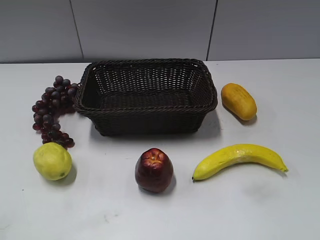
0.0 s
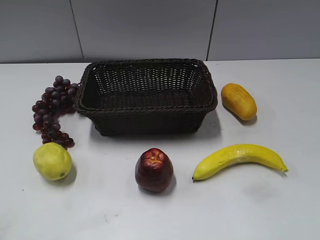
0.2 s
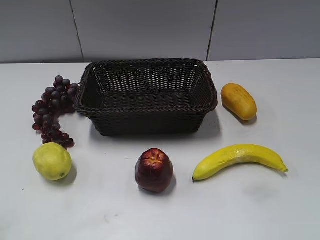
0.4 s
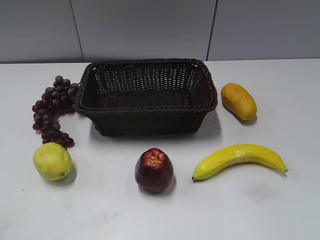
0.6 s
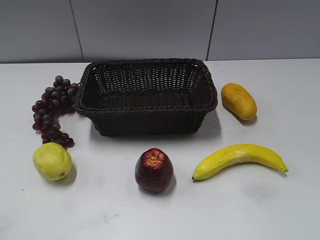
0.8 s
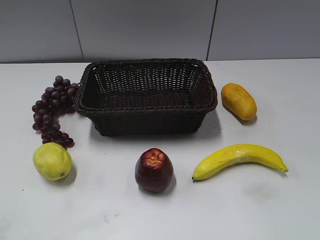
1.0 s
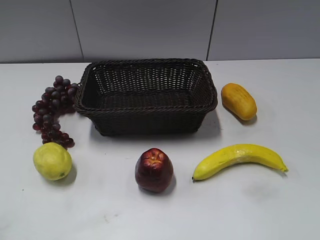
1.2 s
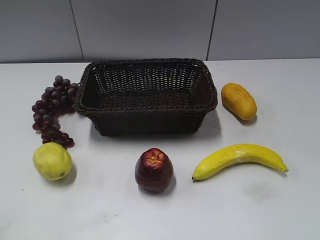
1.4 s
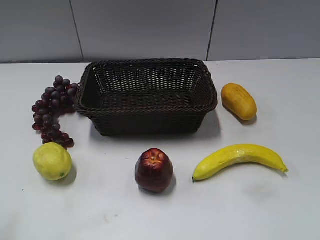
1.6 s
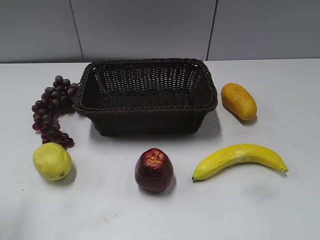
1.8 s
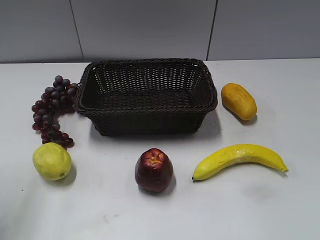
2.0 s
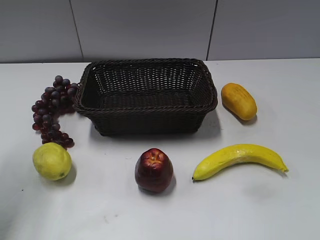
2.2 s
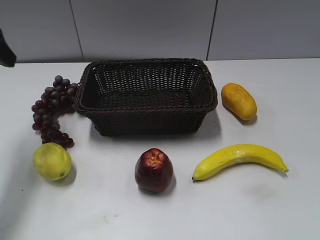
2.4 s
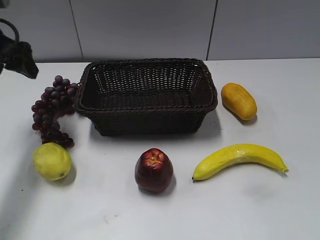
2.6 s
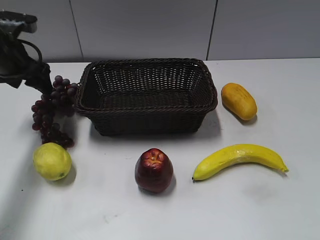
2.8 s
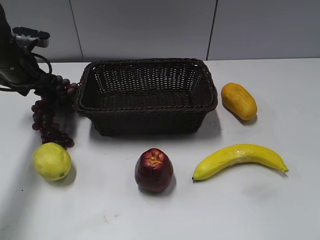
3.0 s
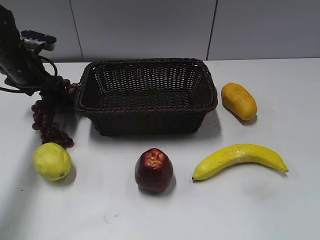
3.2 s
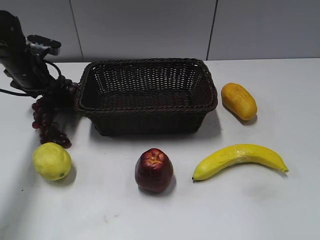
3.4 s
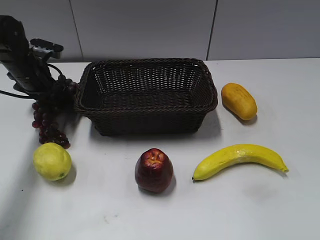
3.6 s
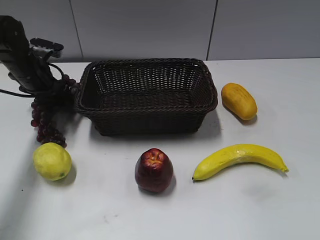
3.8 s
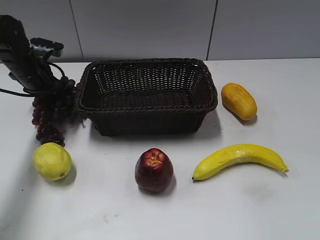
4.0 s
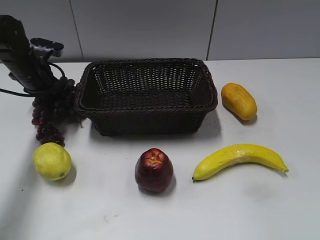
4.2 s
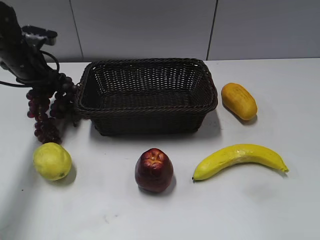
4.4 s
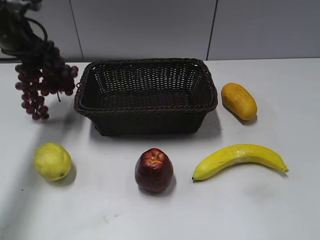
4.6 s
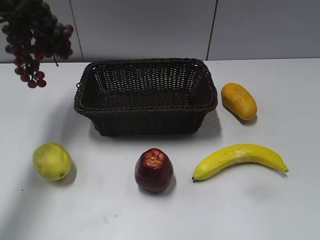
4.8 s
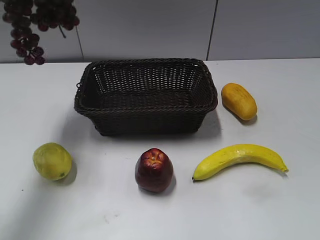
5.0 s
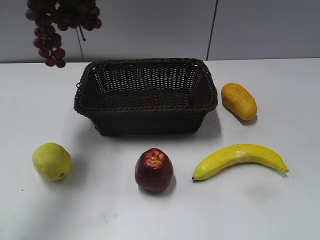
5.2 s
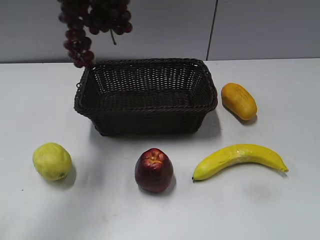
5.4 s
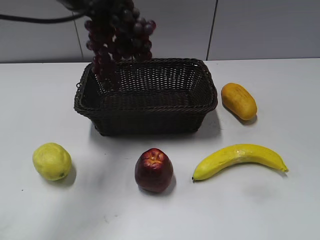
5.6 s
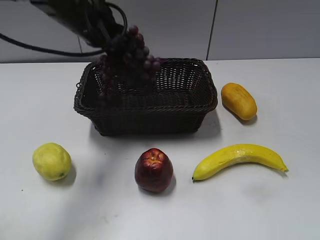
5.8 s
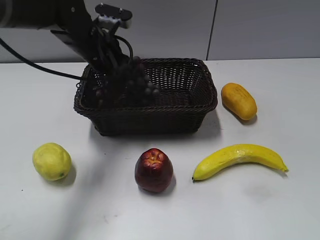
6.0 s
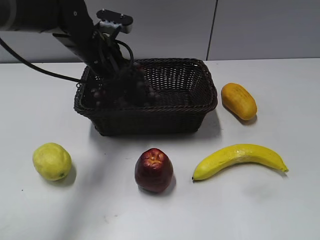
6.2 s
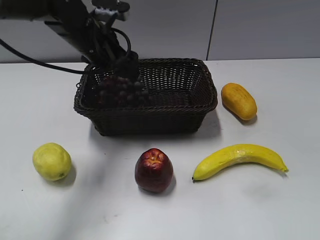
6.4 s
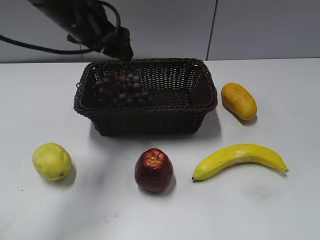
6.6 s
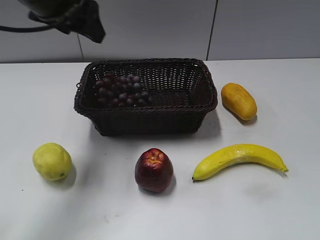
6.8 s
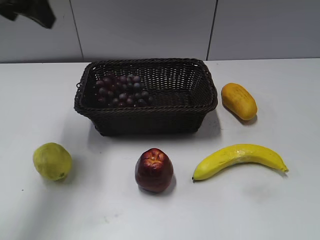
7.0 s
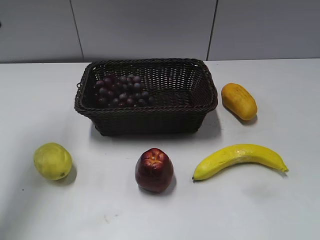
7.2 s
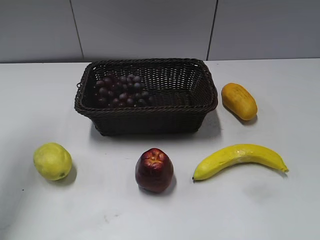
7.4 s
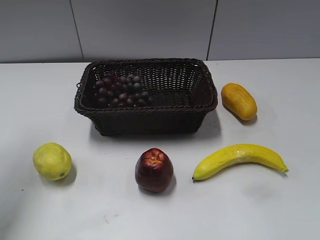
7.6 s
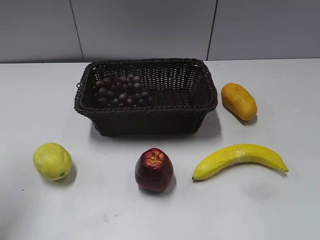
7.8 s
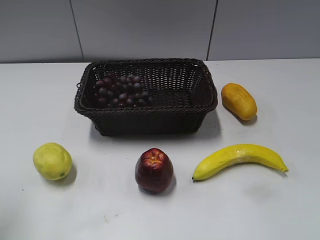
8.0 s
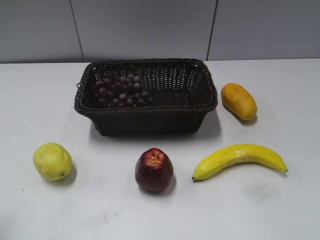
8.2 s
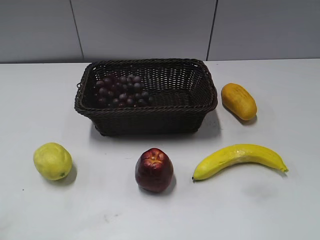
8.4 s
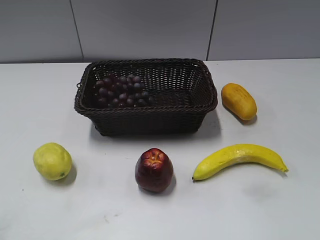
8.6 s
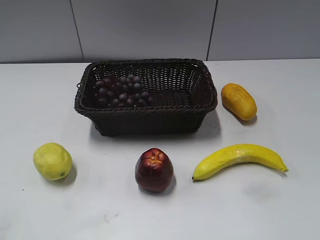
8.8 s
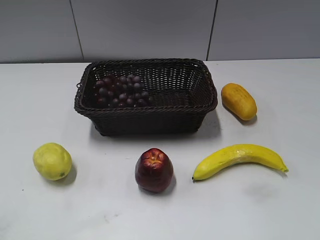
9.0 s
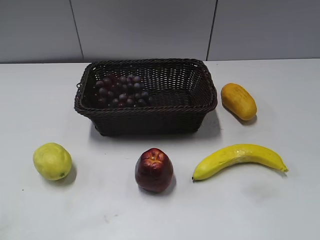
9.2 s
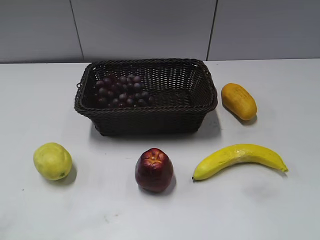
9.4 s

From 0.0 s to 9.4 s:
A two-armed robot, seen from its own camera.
Step, from 2.4 s to 3.8 s: Grasp the grape with left gripper.
Step, from 4.0 s to 6.4 s: Place the grape in the basket with left gripper.
From 1.6 s to 3.2 s: The left gripper moves forward and downward, approximately 40 cm.
From 3.2 s to 4.8 s: The left gripper shifts about 15 cm upward, and closes its fingers.
From 4.8 s to 6.2 s: The left gripper is displaced to the right and downward by some 20 cm, and opens up.
From 6.2 s to 7.8 s: The left gripper shifts about 30 cm to the left, backward and upward, and opens up.
From 7.8 s to 9.4 s: The left gripper goes some 20 cm backward.

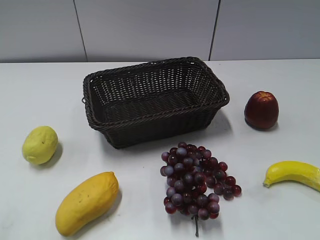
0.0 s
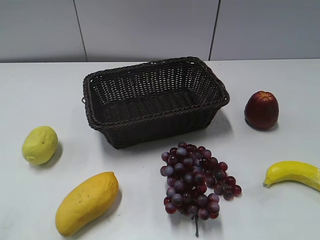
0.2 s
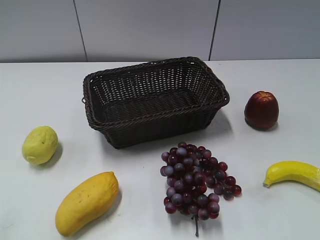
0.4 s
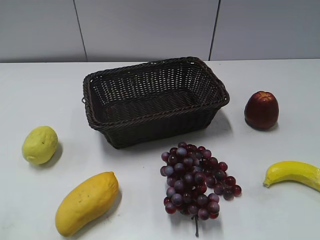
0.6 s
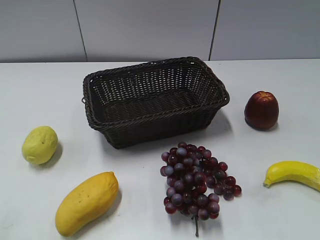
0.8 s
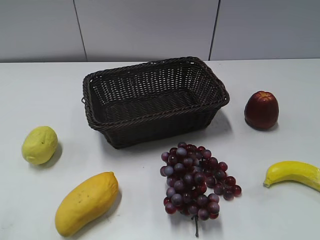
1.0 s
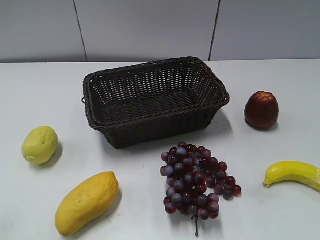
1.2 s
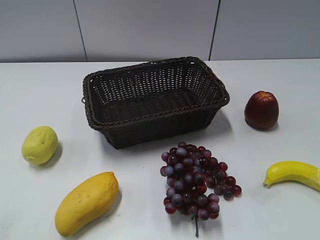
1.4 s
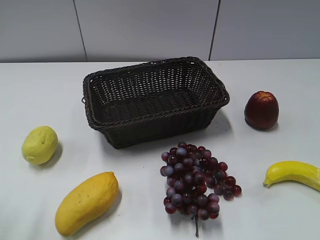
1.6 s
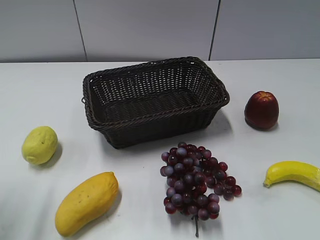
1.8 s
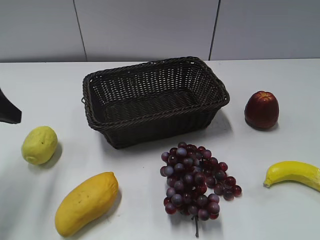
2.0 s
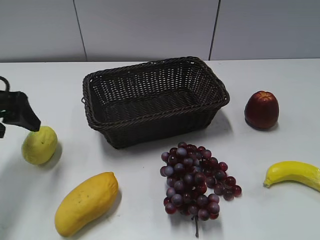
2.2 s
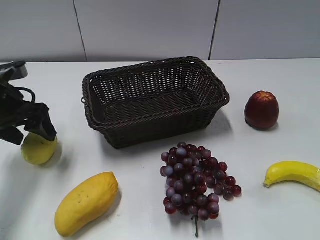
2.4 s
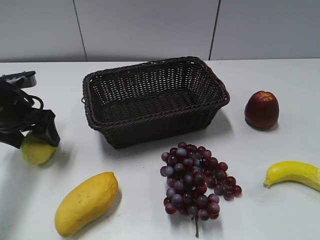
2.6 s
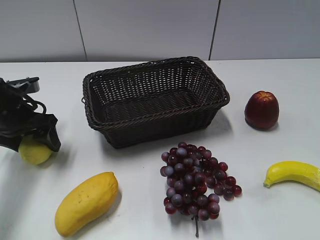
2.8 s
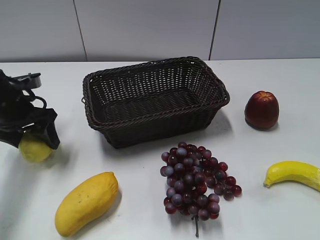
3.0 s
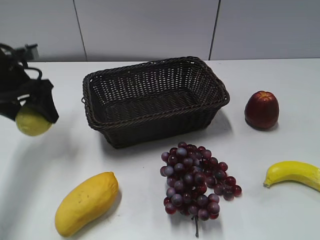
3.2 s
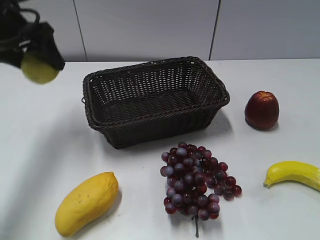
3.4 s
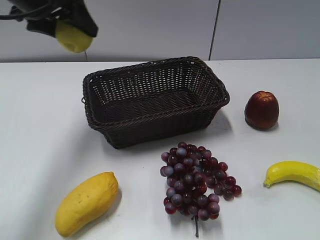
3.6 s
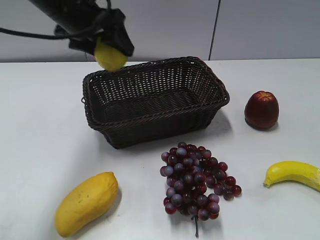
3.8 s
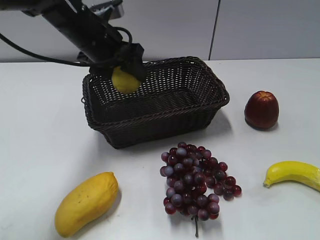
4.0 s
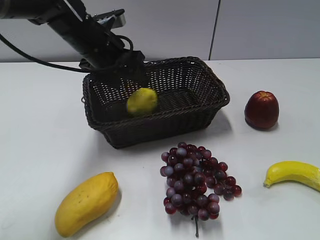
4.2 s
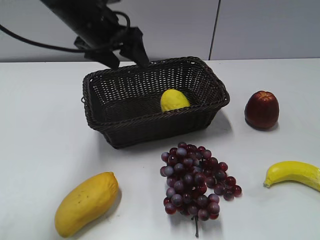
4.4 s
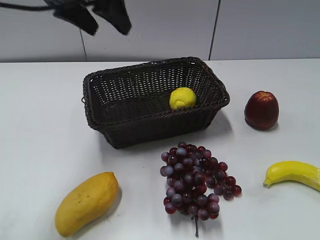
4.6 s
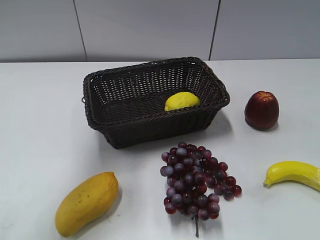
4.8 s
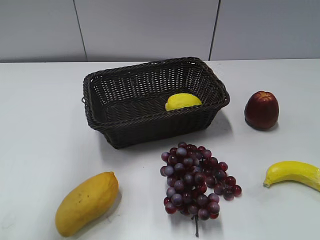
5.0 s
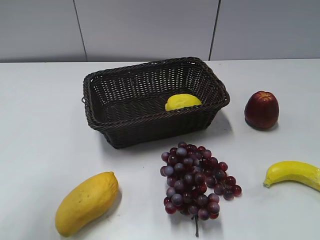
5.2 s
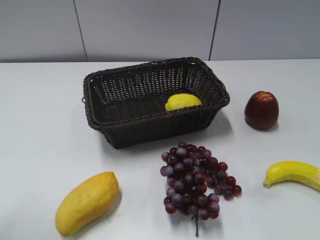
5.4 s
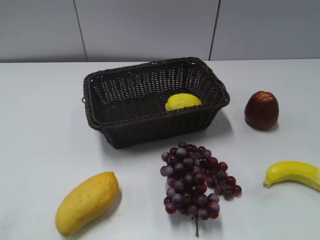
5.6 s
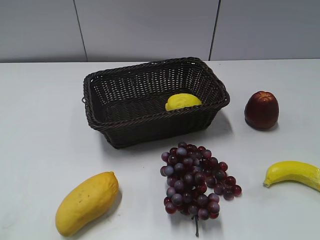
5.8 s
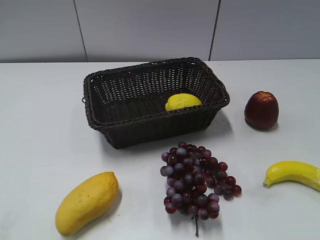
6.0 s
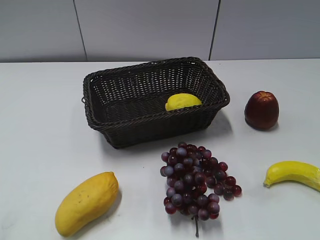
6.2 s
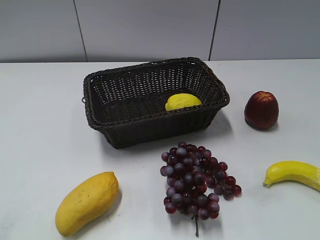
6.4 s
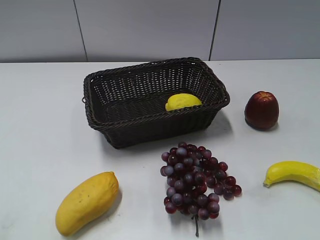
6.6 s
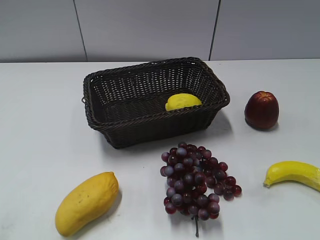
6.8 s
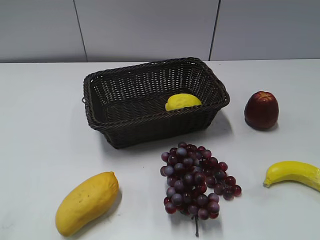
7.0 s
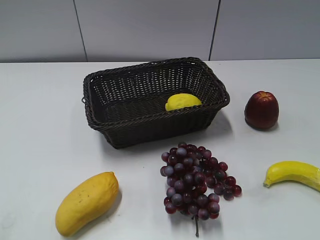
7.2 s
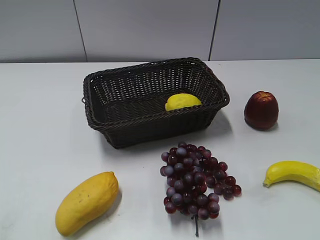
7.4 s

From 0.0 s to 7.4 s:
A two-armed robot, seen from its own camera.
Step, from 2.0 s to 3.0 s: Grasp the lemon with left gripper.
Step, from 3.2 s to 4.4 s: Place the lemon in the basket with left gripper.
From 1.4 s to 3.0 s: The left gripper heads forward and downward, covering approximately 30 cm.
From 3.0 s to 4.4 s: The left gripper moves to the right and upward, about 20 cm.
From 4.4 s to 6.0 s: The left gripper travels backward and to the left by some 40 cm.

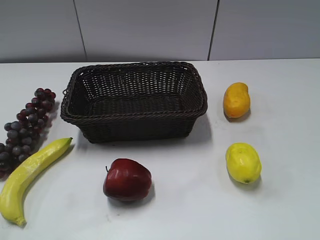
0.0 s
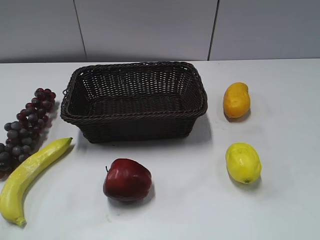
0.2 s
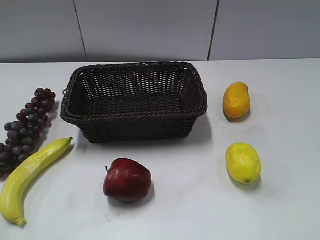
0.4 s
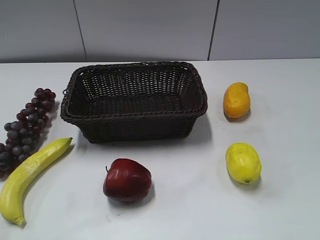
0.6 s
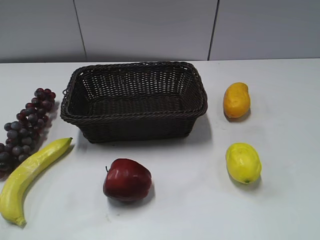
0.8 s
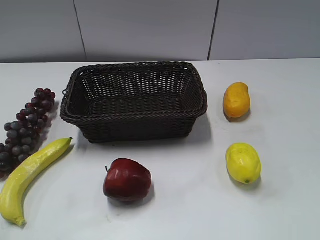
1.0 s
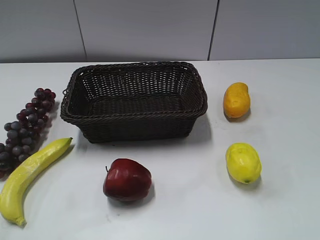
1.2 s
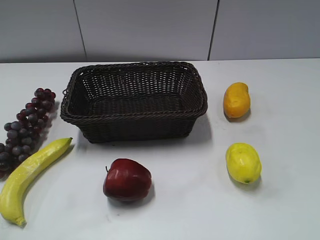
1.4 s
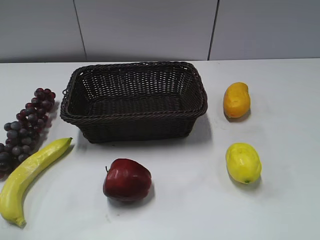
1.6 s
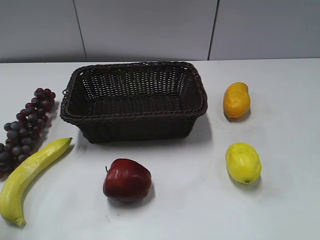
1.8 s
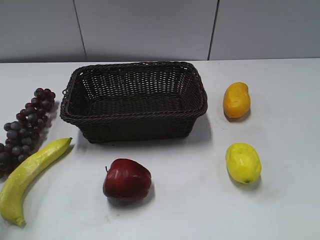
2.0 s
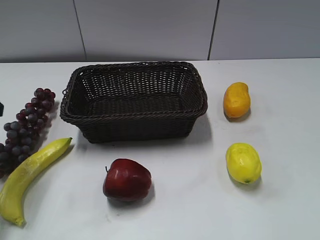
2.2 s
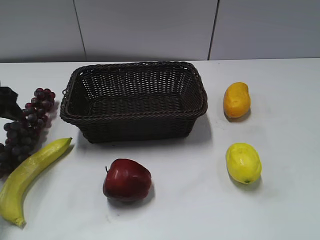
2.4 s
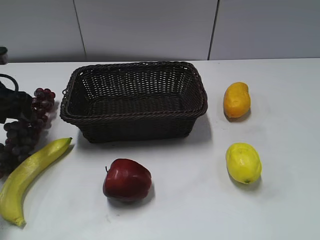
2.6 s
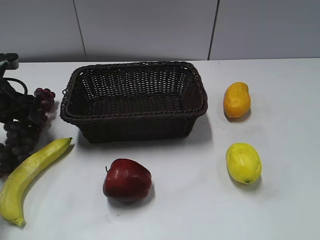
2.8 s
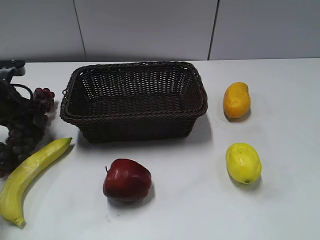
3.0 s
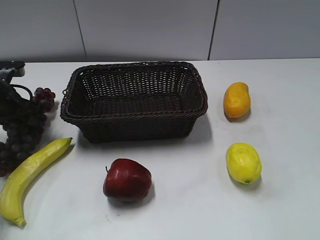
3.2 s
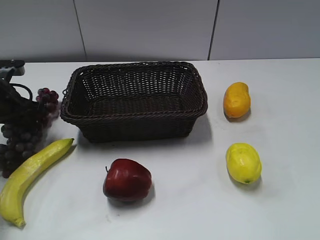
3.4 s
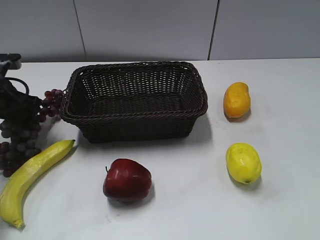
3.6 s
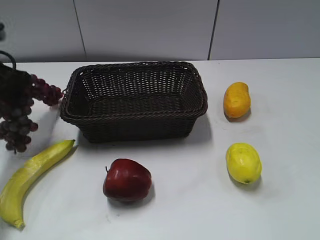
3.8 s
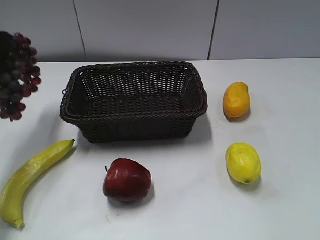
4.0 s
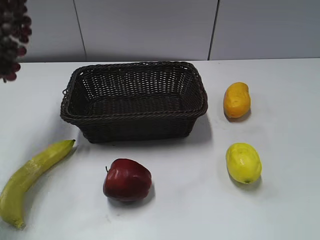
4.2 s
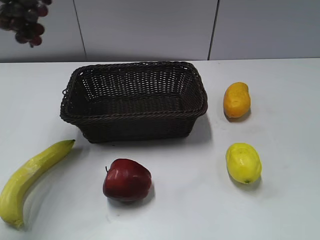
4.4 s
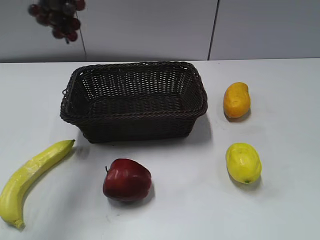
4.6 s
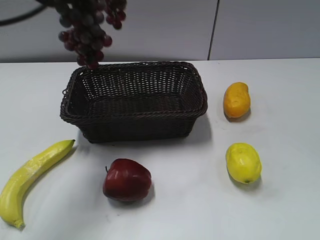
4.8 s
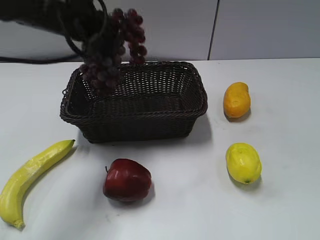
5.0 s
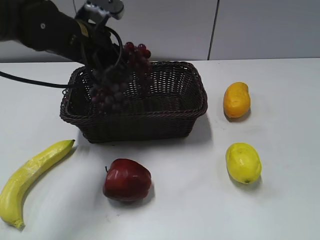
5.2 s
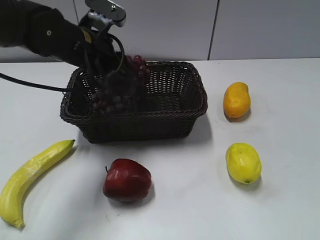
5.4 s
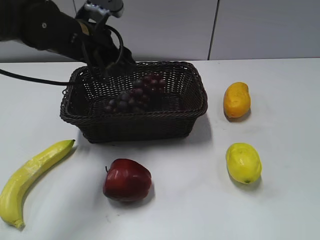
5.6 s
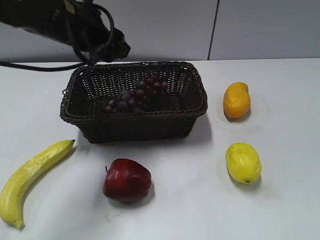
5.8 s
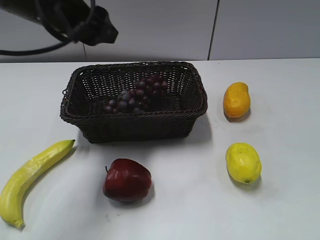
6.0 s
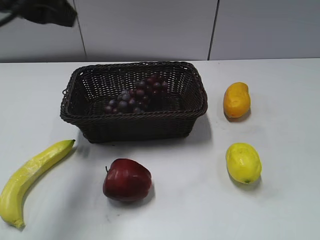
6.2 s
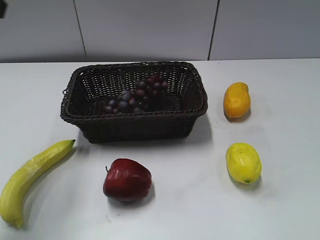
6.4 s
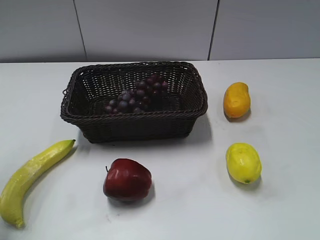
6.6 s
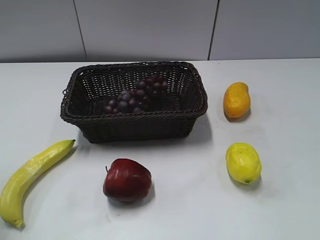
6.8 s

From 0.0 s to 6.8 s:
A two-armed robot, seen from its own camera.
Step, from 2.2 s to 3.6 s: Grasp the grape with left gripper.
Step, from 3.8 s to 5.6 s: Place the grape in the basket with left gripper.
From 1.4 s to 2.8 s: The left gripper heads forward and downward, covering some 35 cm.
From 2.8 s to 4.0 s: The left gripper heads upward, covering about 15 cm, and closes.
From 4.0 s to 5.4 s: The left gripper travels to the right by about 20 cm, and opens.
From 5.4 s to 6.8 s: The left gripper moves to the left, backward and upward, roughly 30 cm.
